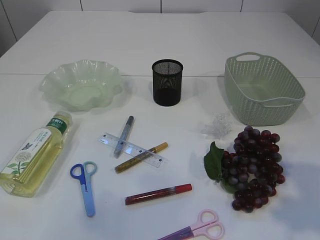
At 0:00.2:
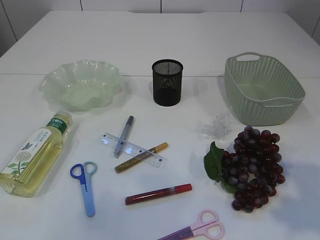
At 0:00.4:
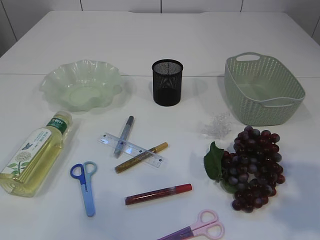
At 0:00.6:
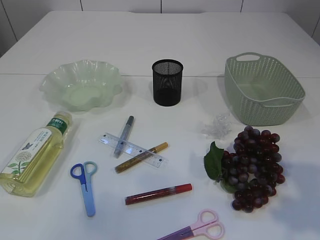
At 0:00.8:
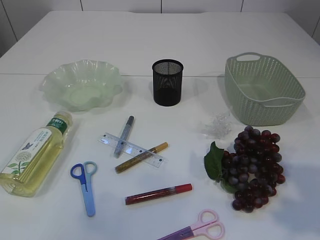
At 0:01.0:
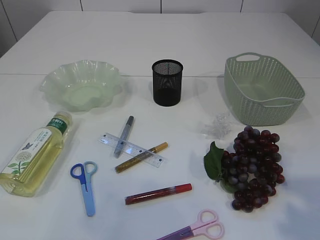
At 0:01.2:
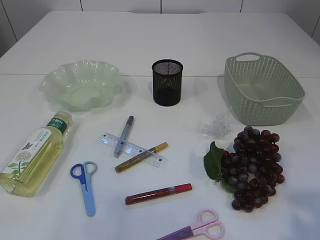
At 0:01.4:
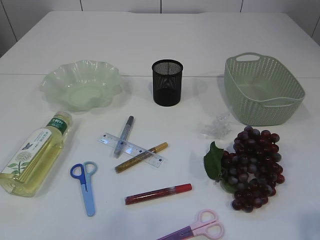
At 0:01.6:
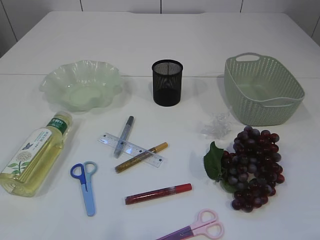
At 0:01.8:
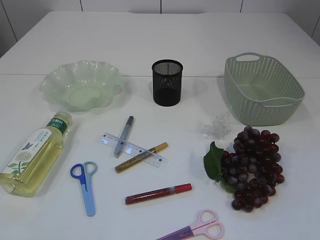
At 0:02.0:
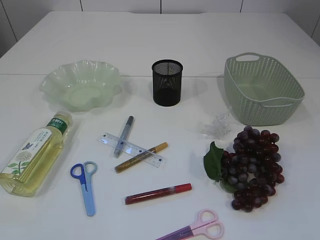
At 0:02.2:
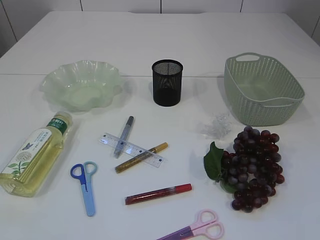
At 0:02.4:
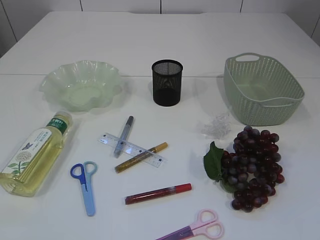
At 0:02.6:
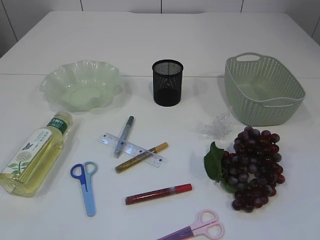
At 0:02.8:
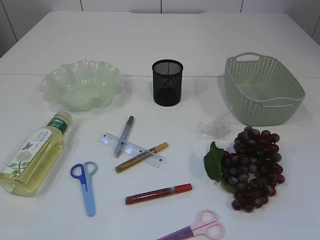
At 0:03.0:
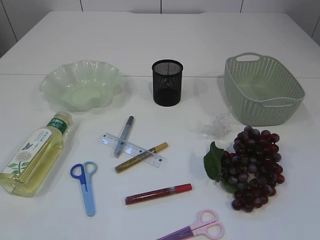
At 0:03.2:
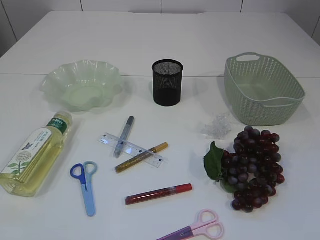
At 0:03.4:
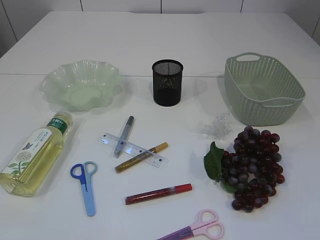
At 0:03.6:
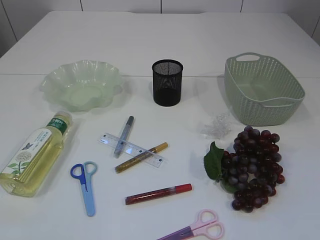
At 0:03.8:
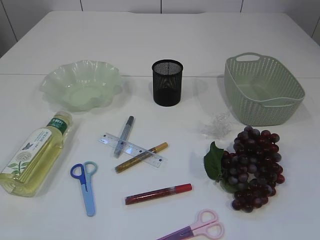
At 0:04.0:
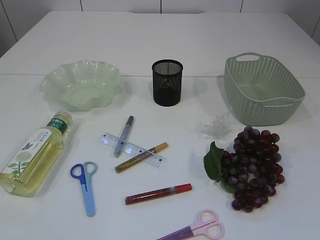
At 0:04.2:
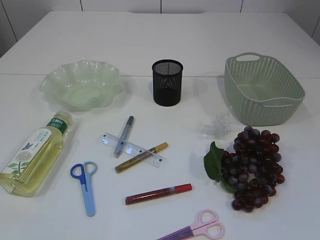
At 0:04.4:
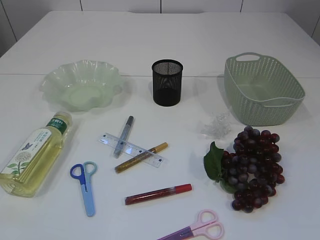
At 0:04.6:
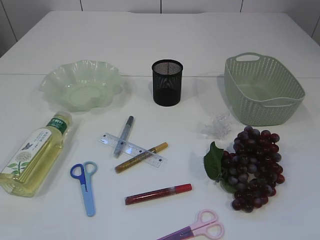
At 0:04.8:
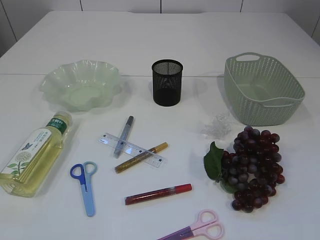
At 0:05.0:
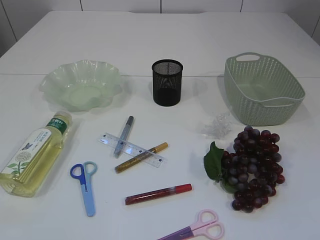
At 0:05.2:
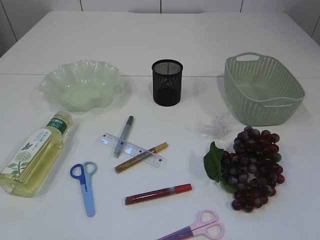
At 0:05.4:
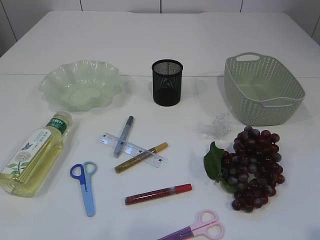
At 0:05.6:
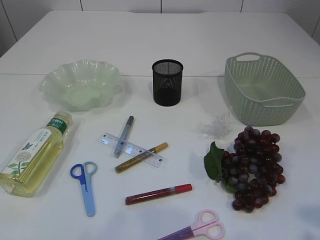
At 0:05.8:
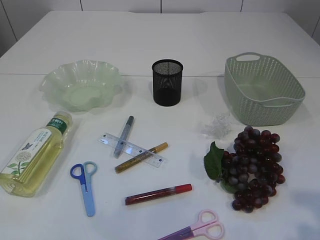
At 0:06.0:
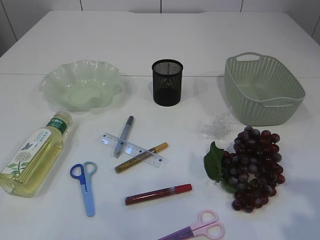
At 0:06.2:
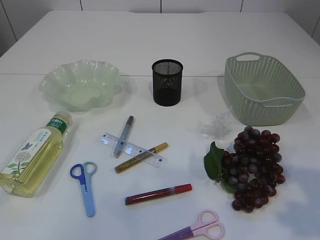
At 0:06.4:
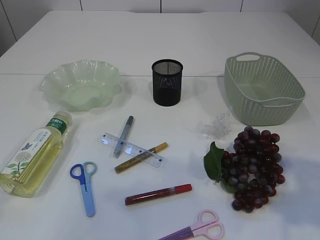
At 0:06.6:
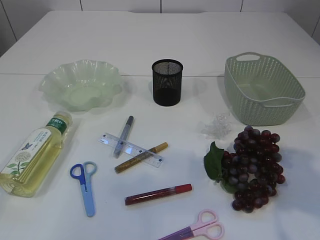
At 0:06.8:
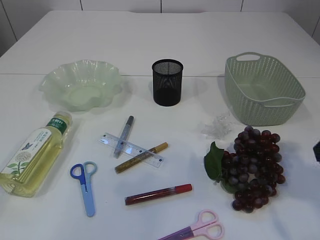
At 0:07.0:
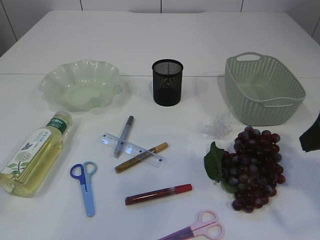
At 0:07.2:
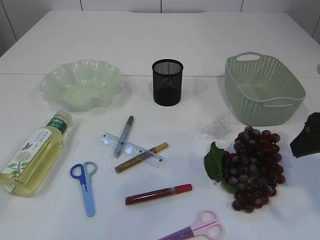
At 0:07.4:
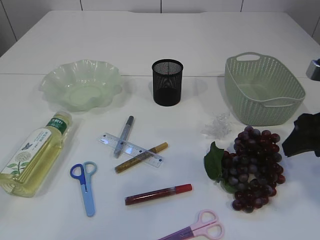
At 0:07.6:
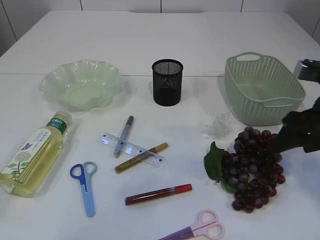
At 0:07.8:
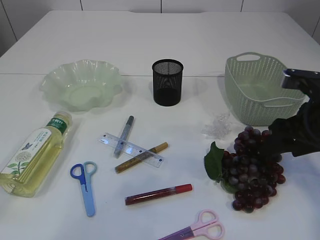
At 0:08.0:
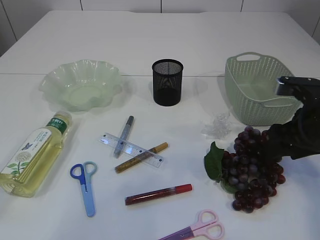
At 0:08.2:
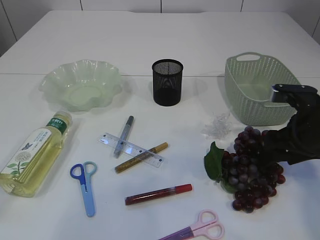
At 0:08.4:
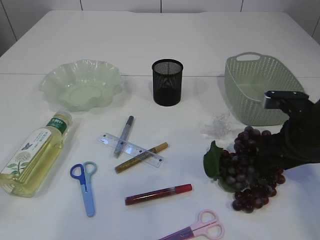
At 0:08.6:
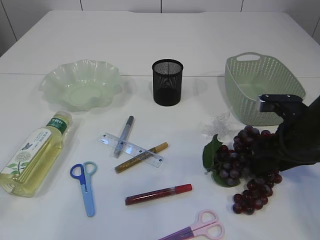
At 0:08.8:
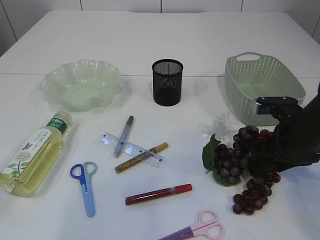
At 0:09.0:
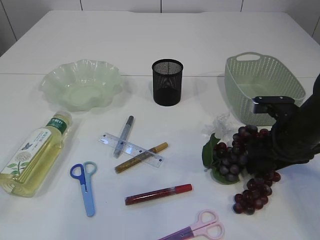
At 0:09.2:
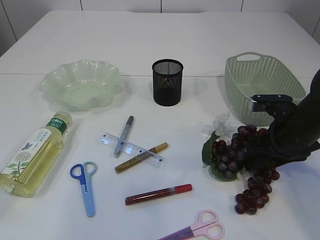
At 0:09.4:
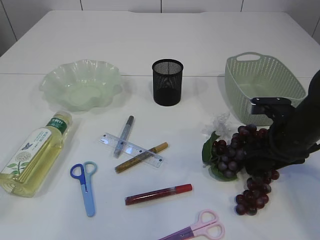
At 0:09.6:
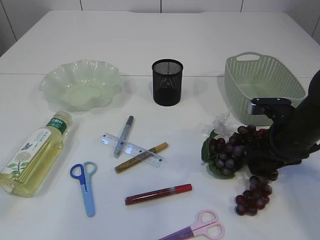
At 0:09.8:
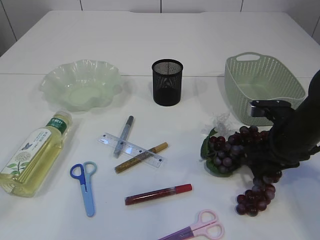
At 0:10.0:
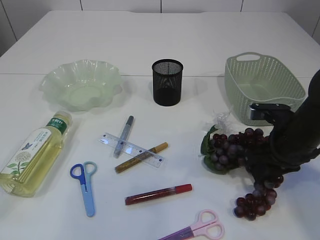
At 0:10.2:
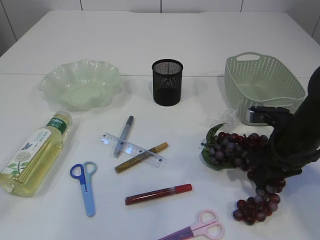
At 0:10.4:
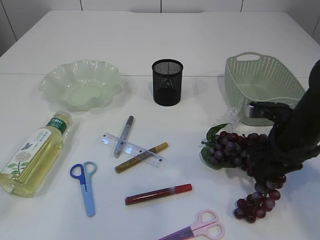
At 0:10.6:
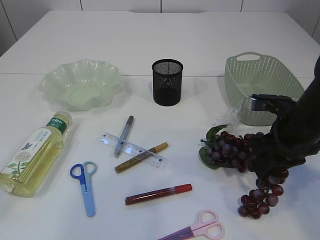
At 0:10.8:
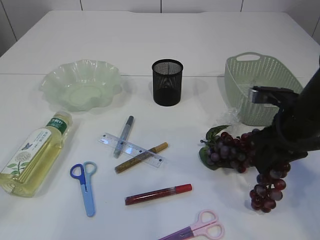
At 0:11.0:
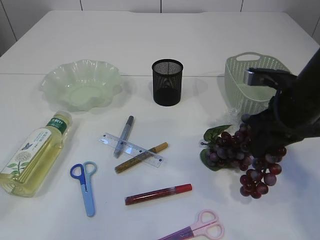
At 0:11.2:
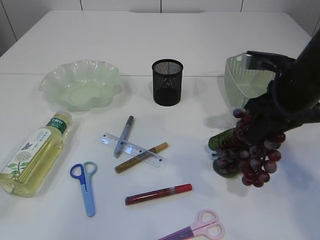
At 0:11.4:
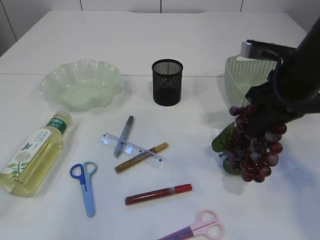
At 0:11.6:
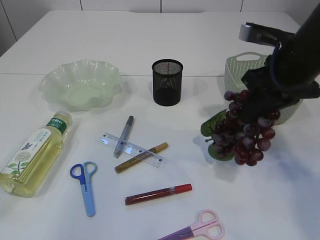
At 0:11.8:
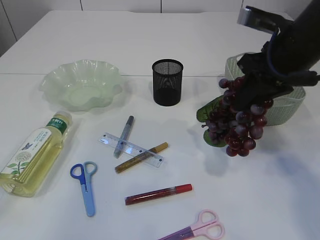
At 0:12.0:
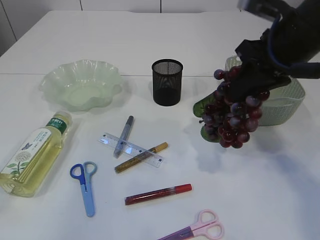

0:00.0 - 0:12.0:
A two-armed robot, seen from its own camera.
Step, 0:00.0 - 0:11.6: Pick up the grapes.
0:00.0 - 0:01.6: The right gripper is displaced backward by roughly 10 cm; the left gripper shifts approximately 10 cm backward.
0:03.0 - 0:04.4: Neither gripper changes place.
0:04.4 - 0:06.0: The right gripper is displaced forward by some 10 cm.
0:06.0 - 0:07.6: The right gripper shifts roughly 20 cm forward and downward.
0:07.6 - 0:09.0: The right gripper is displaced downward by approximately 10 cm.
0:09.0 - 0:10.4: The right gripper closes its fingers.
0:10.4 - 0:12.0: The right gripper moves upward, roughly 15 cm.

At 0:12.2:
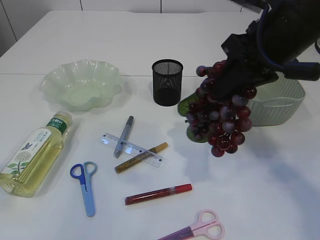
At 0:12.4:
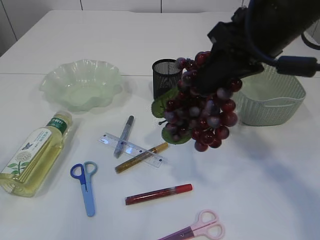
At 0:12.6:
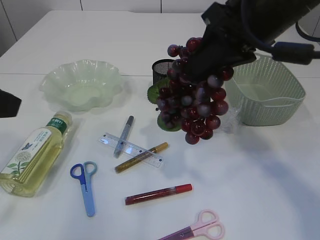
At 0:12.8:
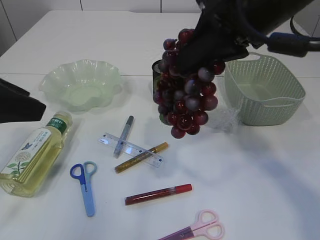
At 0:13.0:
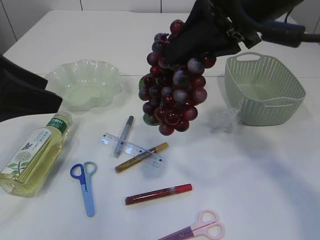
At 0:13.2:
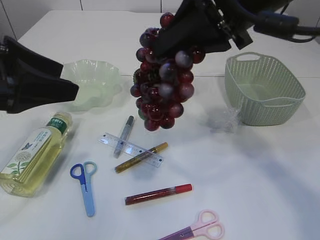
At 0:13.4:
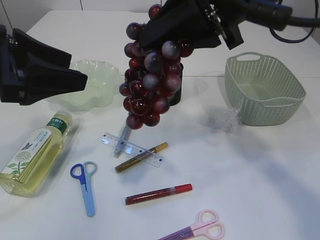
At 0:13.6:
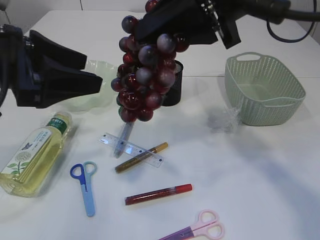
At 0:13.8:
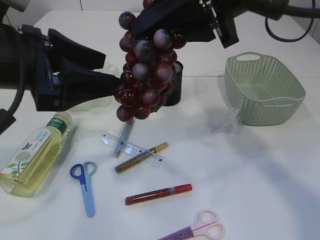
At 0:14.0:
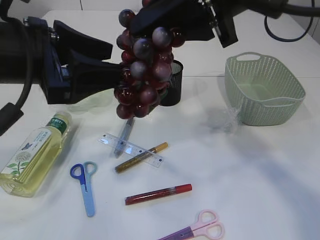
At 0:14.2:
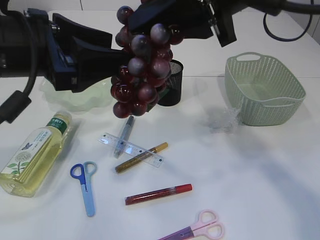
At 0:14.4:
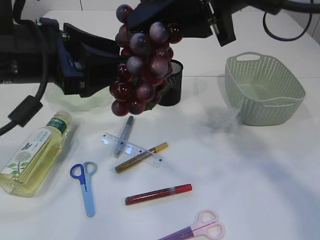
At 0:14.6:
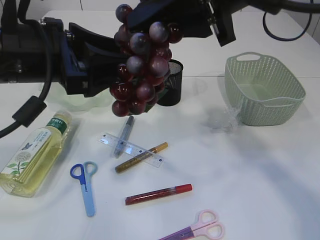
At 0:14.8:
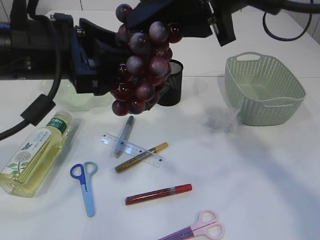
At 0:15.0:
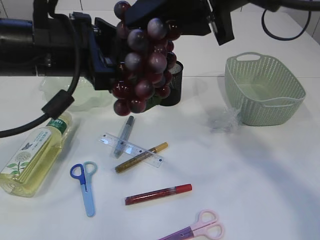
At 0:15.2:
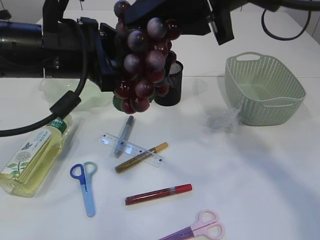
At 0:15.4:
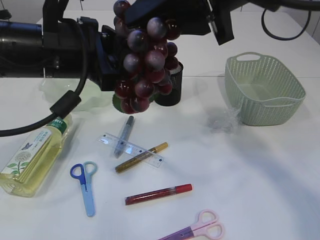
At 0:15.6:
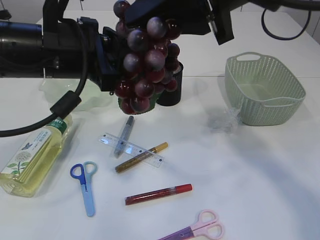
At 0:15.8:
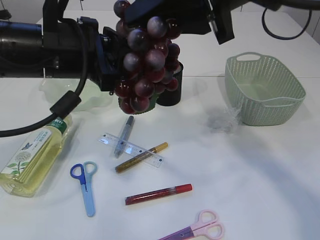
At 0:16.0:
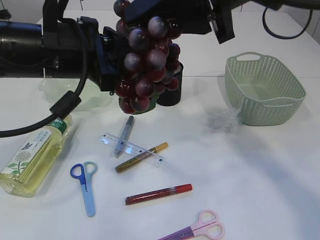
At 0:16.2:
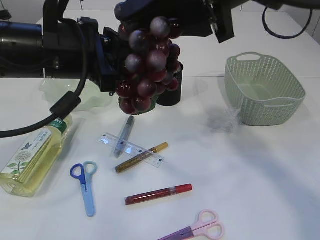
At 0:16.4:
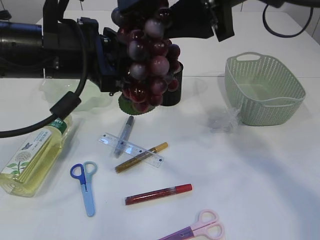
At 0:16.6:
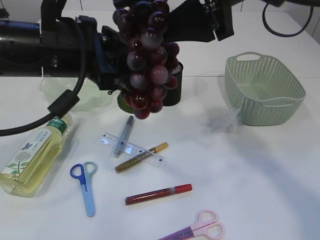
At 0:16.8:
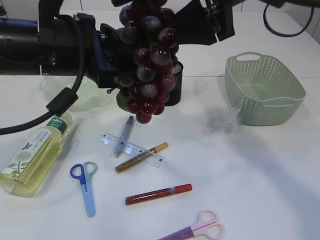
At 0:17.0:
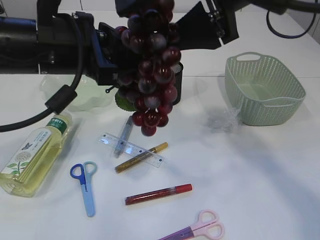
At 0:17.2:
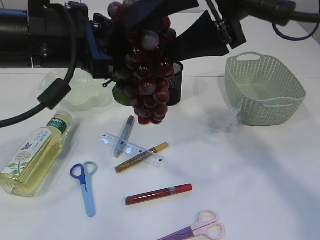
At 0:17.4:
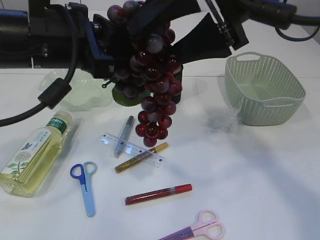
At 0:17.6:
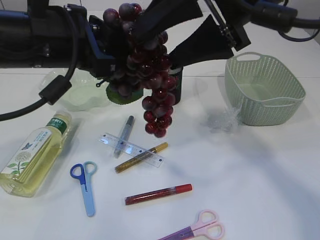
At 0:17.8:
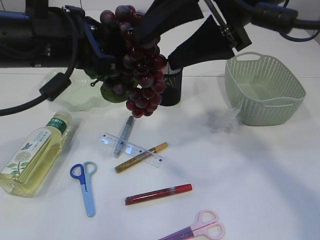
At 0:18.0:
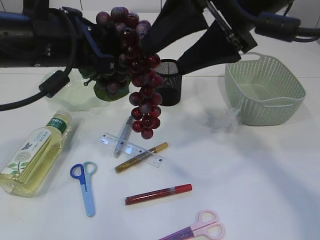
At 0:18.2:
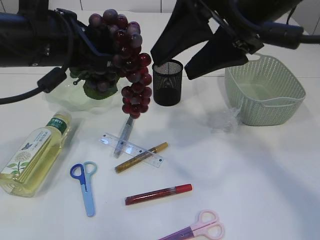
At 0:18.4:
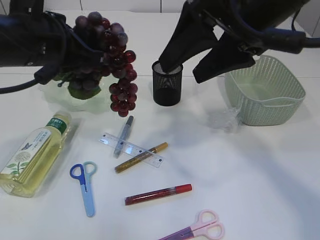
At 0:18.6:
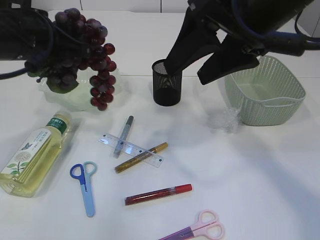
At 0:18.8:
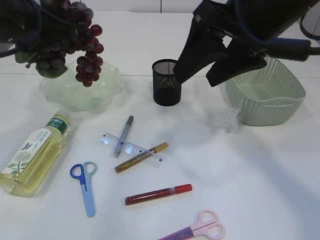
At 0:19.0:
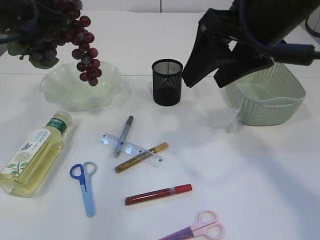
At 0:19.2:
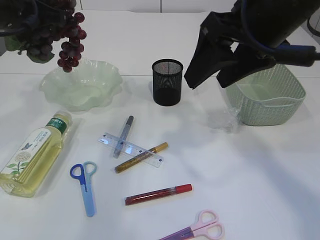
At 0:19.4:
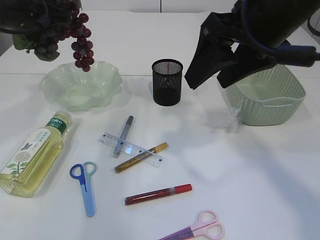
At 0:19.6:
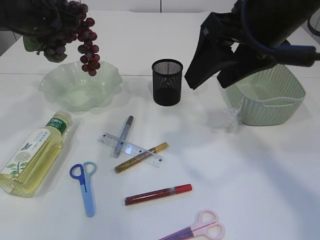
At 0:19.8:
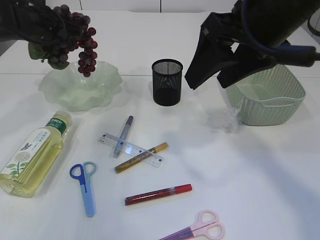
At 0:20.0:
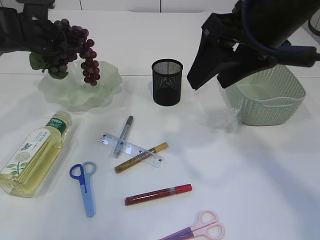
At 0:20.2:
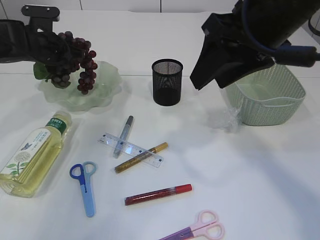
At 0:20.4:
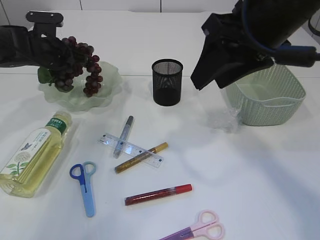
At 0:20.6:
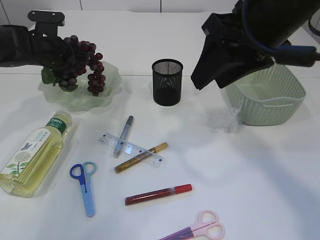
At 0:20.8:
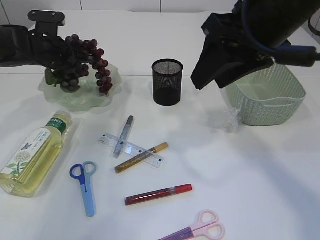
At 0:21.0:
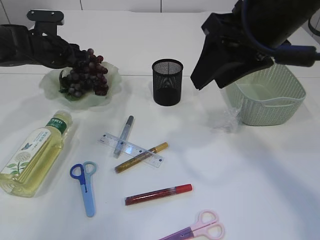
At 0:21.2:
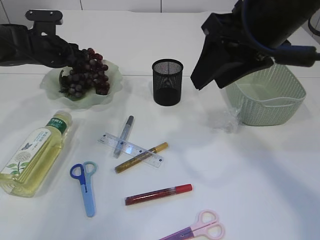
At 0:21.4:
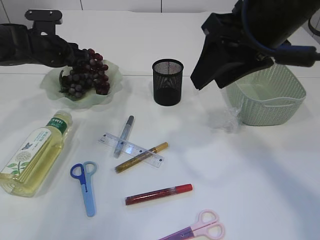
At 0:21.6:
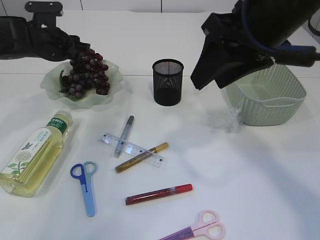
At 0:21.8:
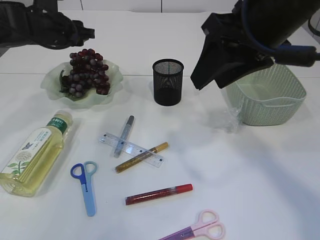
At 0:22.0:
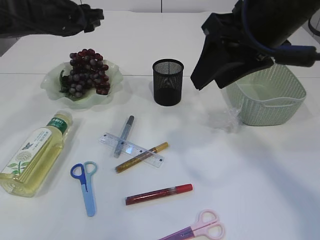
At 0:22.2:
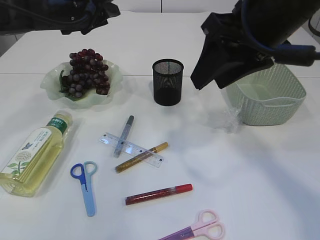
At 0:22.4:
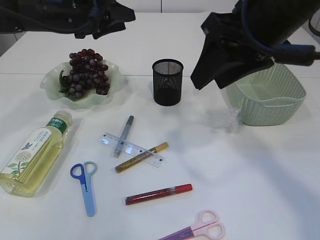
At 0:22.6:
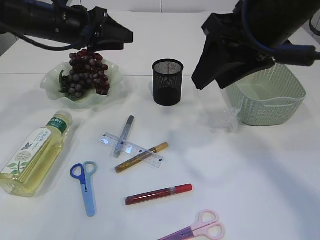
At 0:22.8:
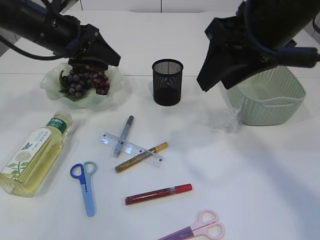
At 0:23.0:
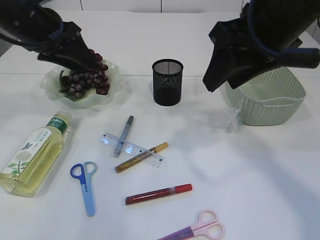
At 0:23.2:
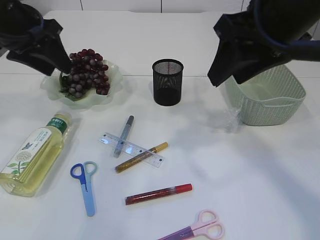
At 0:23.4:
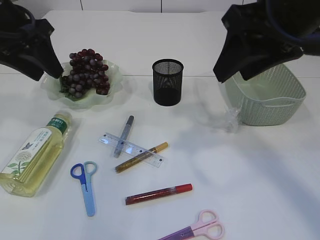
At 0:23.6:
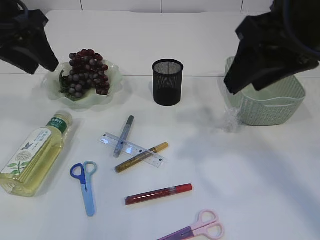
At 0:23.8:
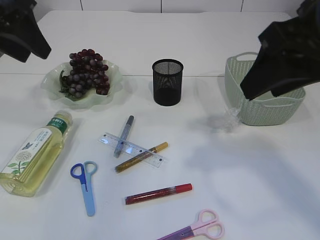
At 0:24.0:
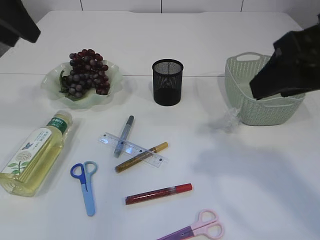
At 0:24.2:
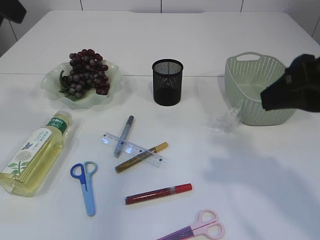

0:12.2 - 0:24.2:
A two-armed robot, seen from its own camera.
Step, 0:12.2 - 0:18.6: Hand over the grapes.
Step, 0:18.8 - 0:22.2: Place the grapes in the plate.
0:12.2 - 0:13.8: The left gripper is displaced forward, to the right and downward by some 15 cm. The right gripper moves to the left and upward, about 10 cm.
0:13.8 - 0:15.2: The left gripper goes roughly 5 cm to the right.
0:15.2 - 0:16.6: The right gripper opens, while the left gripper closes its fingers.
0:18.2 - 0:19.8: The left gripper shifts about 20 cm forward and to the left.
0:19.8 - 0:21.2: The left gripper travels downward by some 5 cm, and opens up.
0:21.2 - 0:22.6: The left gripper goes roughly 15 cm upward, to the right and backward.
0:22.6 - 0:24.2: The right gripper moves backward and to the right, roughly 10 cm. Meanwhile the left gripper is displaced backward, upward and to the left by some 20 cm.
